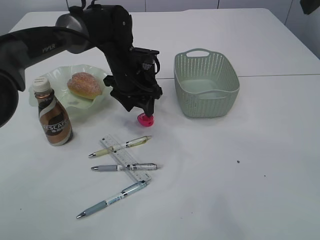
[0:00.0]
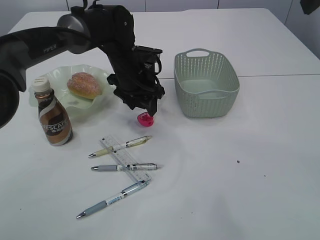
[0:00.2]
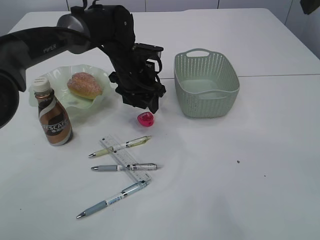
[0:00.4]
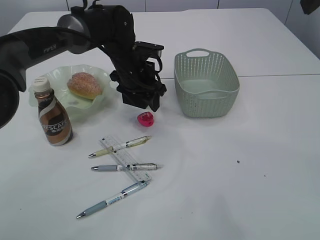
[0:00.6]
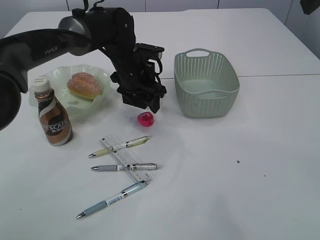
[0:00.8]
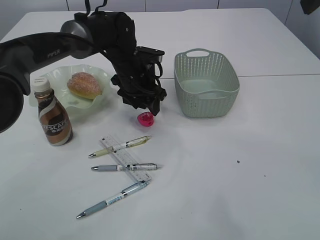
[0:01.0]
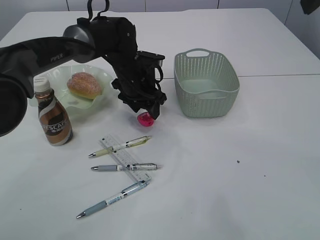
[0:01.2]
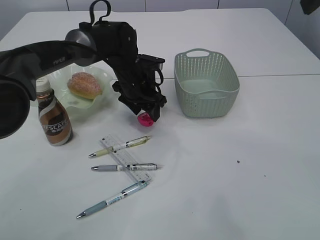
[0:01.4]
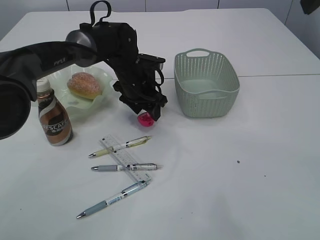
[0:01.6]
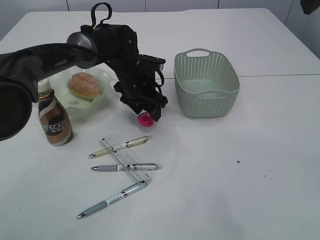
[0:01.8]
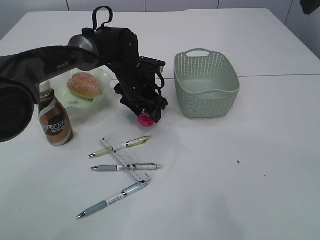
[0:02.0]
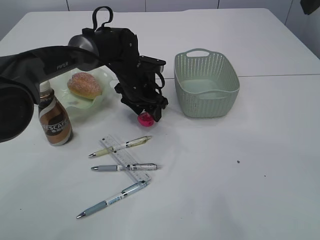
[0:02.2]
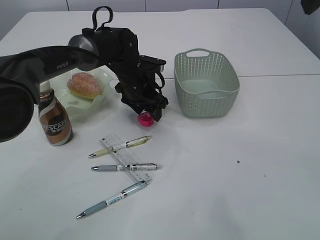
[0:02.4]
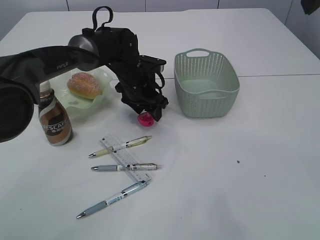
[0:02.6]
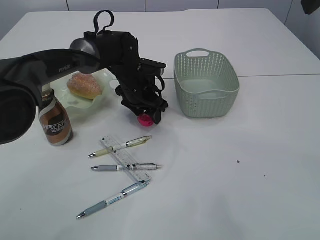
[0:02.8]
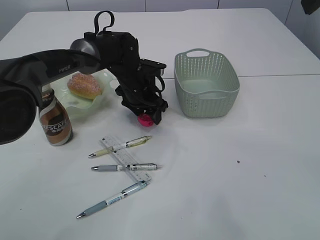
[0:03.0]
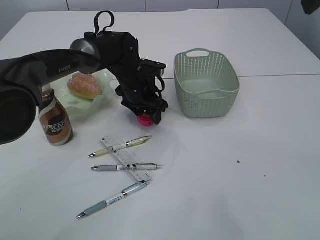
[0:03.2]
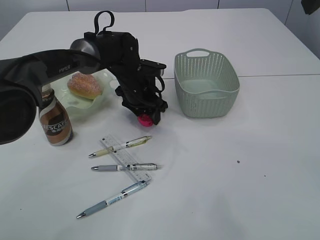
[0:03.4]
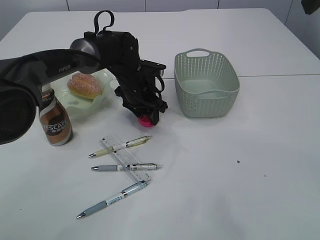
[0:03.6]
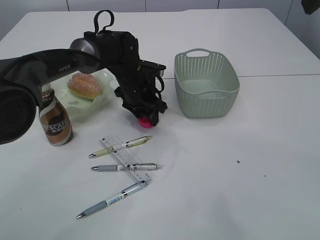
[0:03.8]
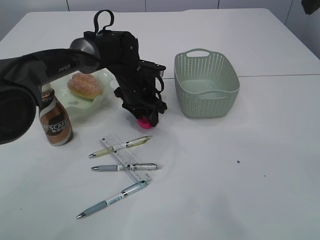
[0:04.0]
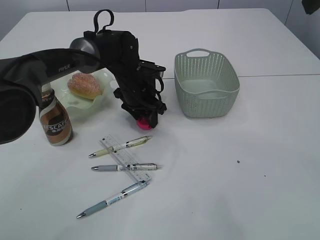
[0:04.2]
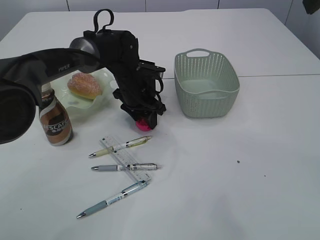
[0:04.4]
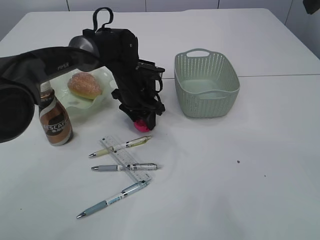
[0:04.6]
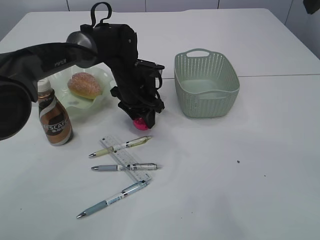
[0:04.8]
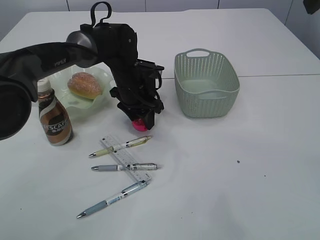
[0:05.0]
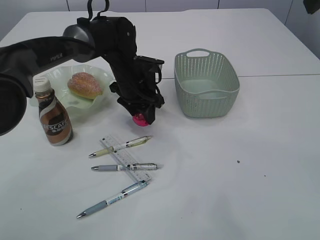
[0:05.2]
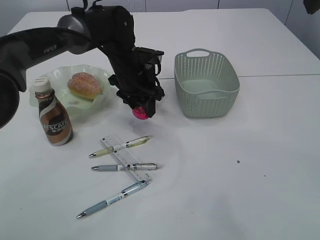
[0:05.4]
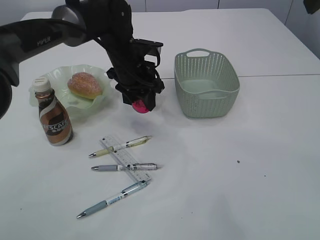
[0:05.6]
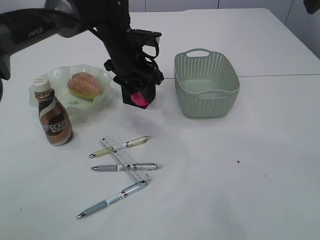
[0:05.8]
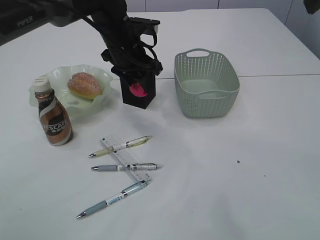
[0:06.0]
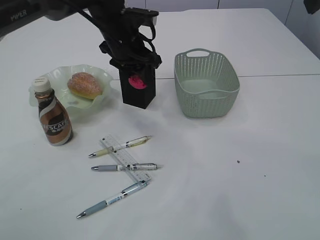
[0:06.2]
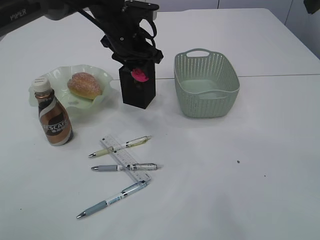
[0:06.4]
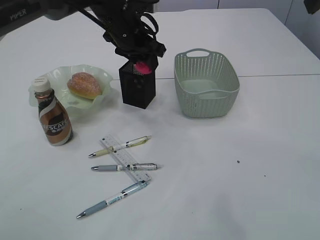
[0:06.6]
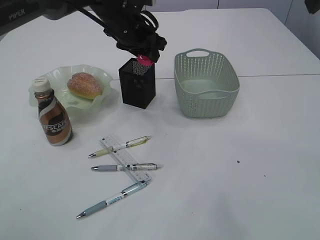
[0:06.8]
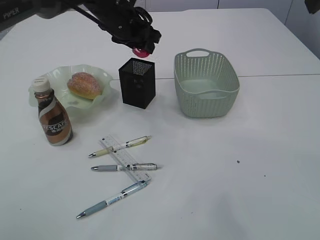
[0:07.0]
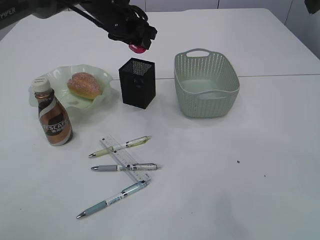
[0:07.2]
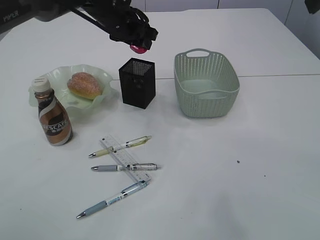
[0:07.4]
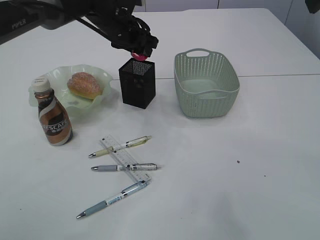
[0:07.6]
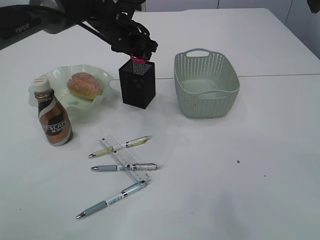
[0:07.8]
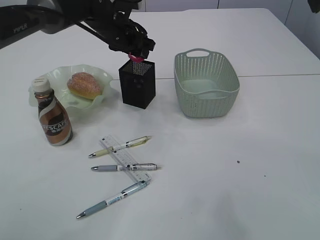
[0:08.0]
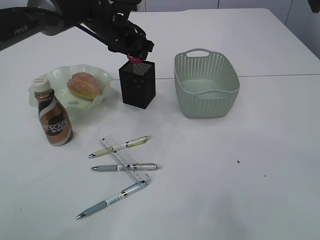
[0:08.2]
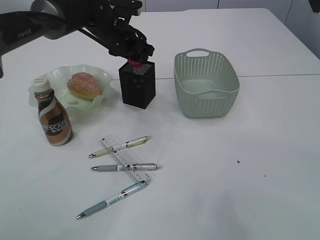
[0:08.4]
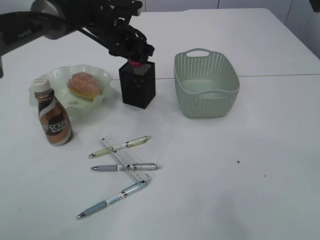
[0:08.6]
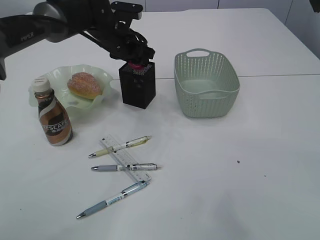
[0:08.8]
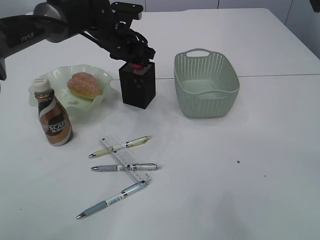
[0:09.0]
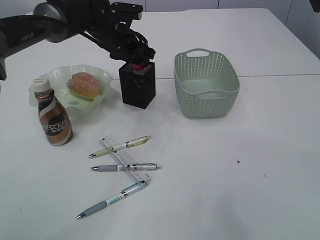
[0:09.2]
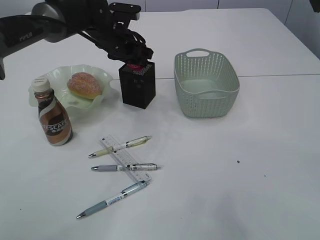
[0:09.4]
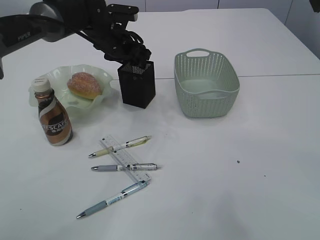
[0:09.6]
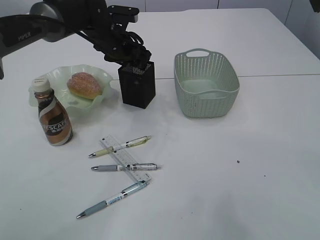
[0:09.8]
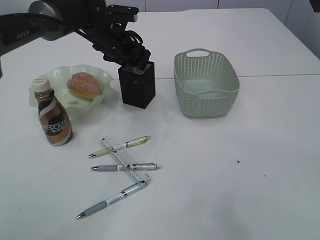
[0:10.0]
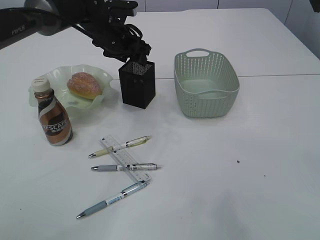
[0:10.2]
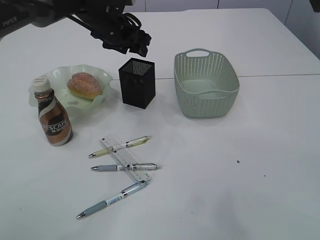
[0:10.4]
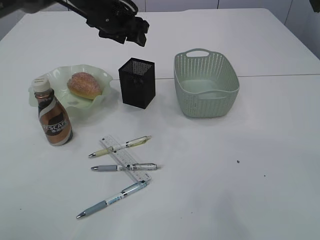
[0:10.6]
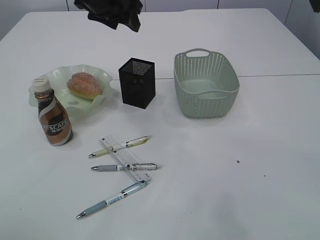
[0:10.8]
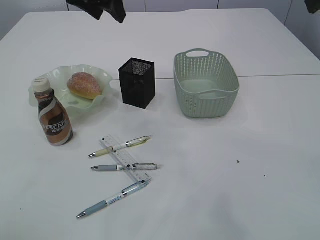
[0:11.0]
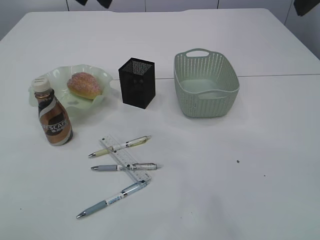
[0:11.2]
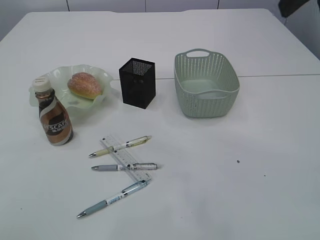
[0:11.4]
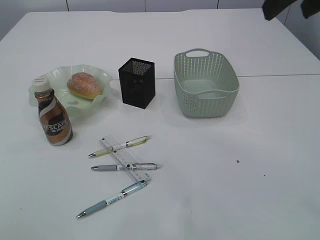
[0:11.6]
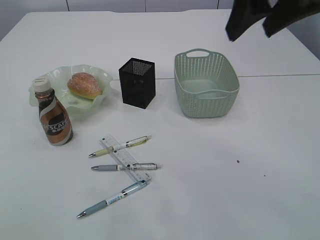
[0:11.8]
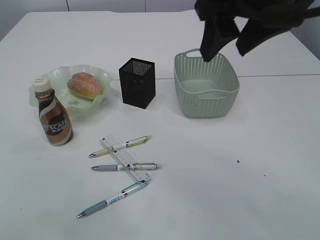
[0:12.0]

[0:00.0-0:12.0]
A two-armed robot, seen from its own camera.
Step, 0:00.0 to 0:05.0: Pick up the red pencil sharpener.
Step, 0:05.2 to 0:10.2: Place the red pencil sharpener into the pen holder.
0:00.0 to 0:04.4: The grippers move only a little.
0:04.4 to 0:06.0: The left gripper heads upward, covering about 10 cm.
0:06.0 to 0:07.6: The left gripper is displaced forward by about 5 cm.
0:07.6 to 0:10.4: The grippers stay close to where they were, moving slightly.
0:10.4 to 0:12.0: The left gripper moves upward, backward and to the left, roughly 35 cm. The right gripper heads to the left, covering approximately 10 cm.

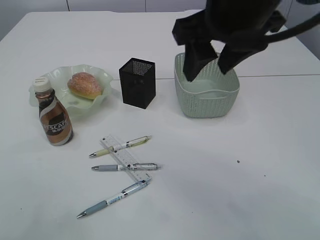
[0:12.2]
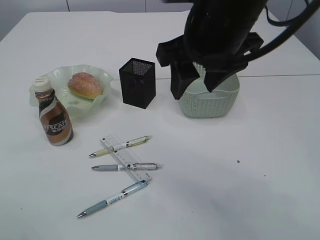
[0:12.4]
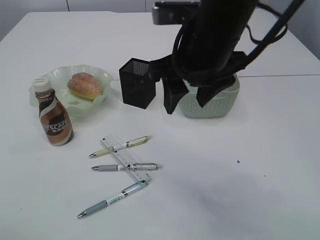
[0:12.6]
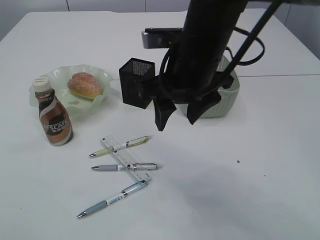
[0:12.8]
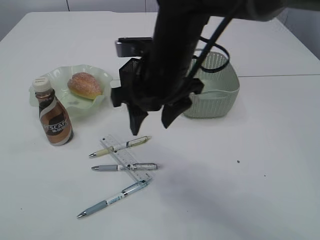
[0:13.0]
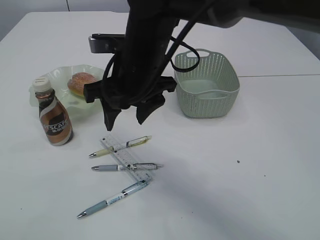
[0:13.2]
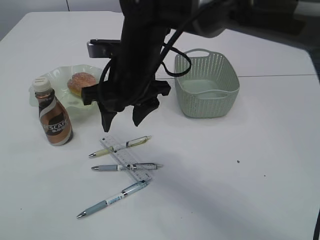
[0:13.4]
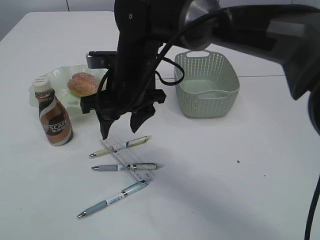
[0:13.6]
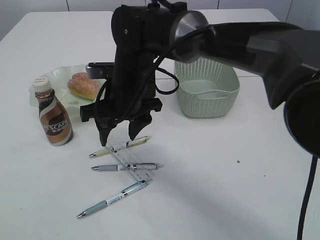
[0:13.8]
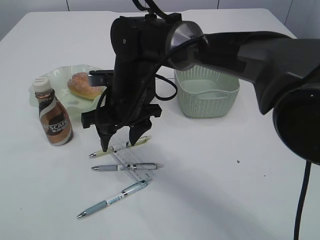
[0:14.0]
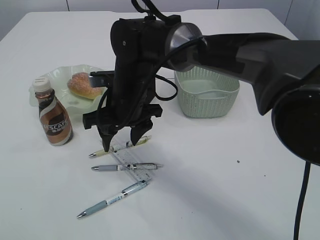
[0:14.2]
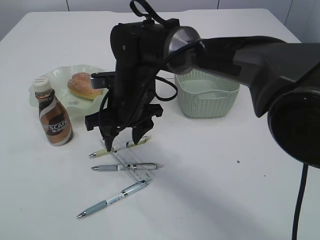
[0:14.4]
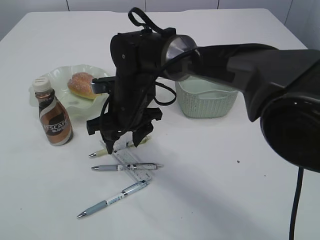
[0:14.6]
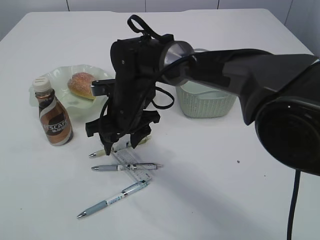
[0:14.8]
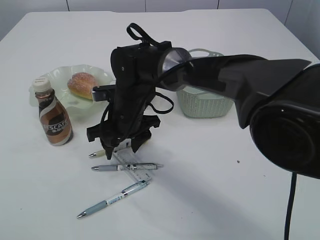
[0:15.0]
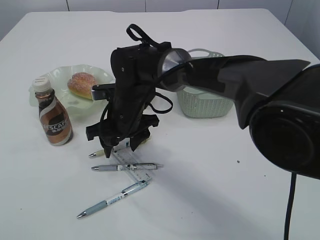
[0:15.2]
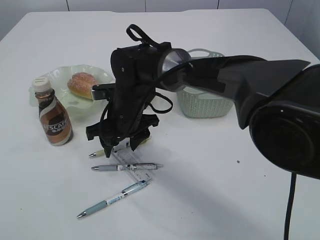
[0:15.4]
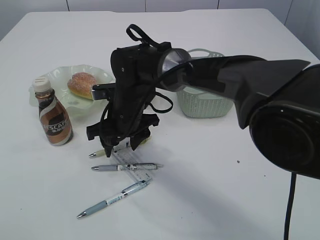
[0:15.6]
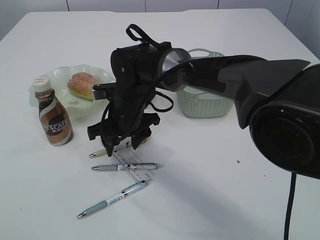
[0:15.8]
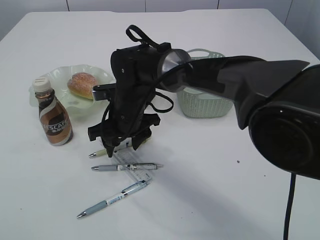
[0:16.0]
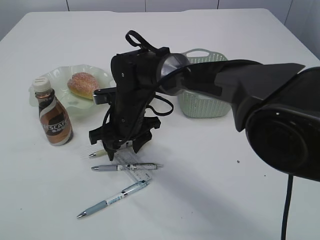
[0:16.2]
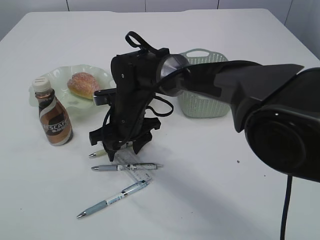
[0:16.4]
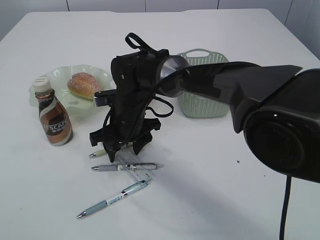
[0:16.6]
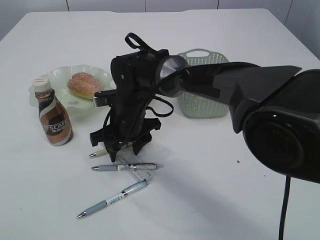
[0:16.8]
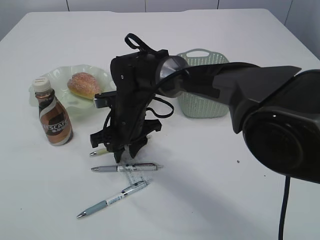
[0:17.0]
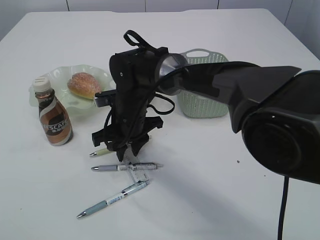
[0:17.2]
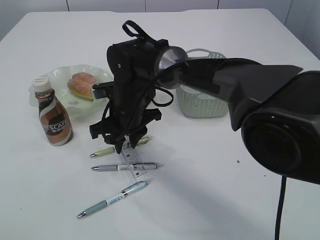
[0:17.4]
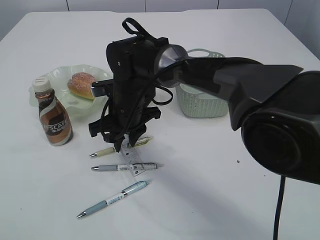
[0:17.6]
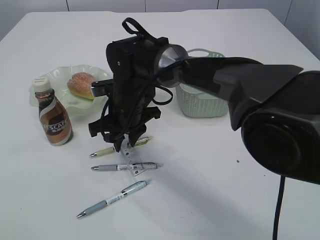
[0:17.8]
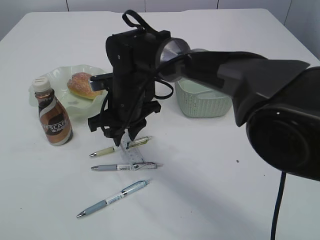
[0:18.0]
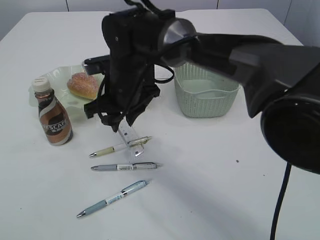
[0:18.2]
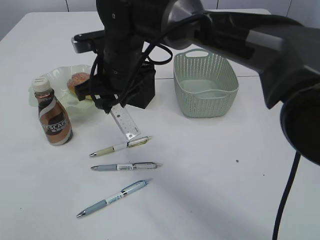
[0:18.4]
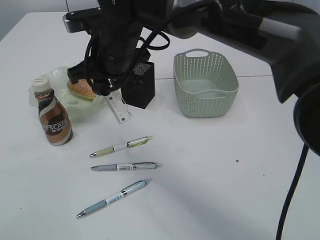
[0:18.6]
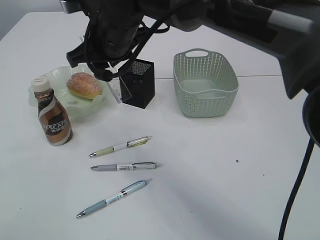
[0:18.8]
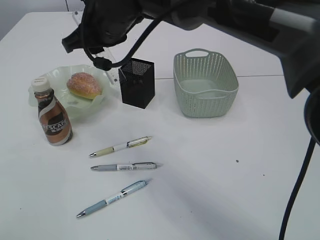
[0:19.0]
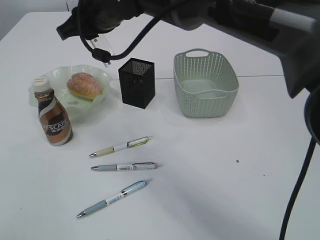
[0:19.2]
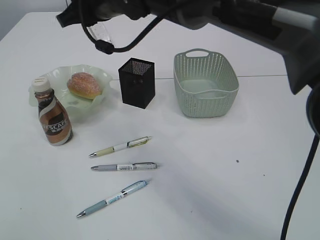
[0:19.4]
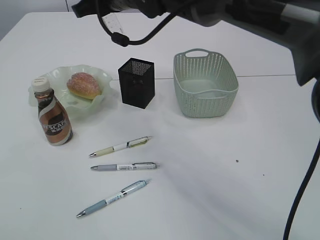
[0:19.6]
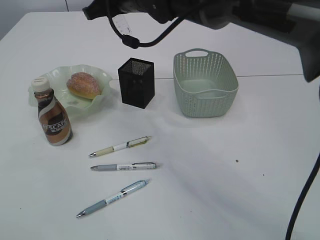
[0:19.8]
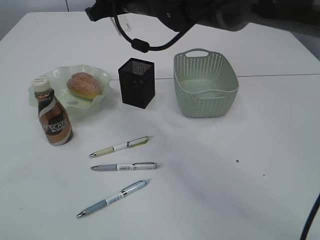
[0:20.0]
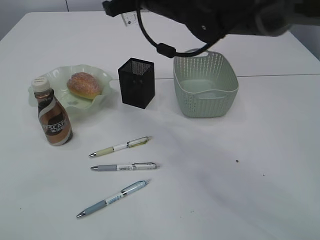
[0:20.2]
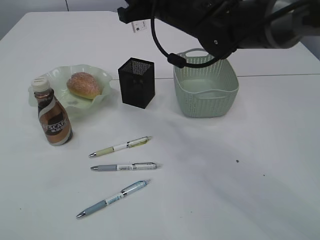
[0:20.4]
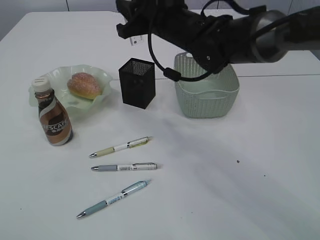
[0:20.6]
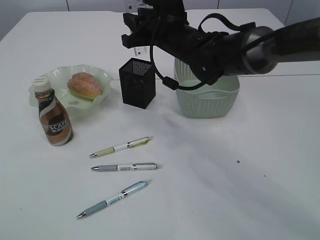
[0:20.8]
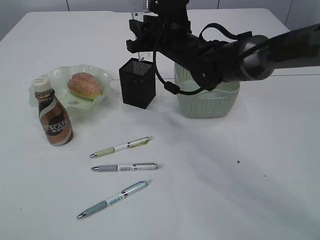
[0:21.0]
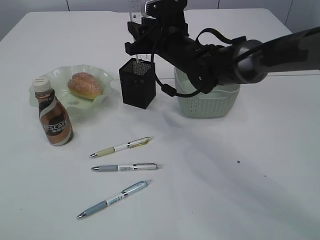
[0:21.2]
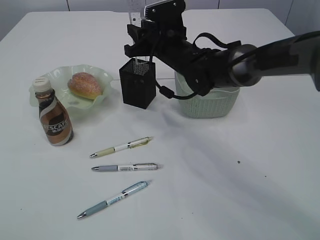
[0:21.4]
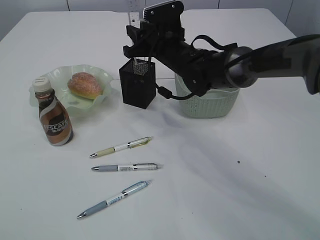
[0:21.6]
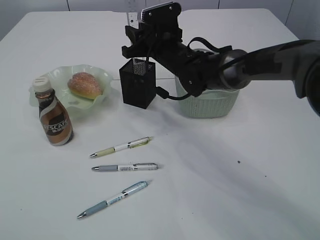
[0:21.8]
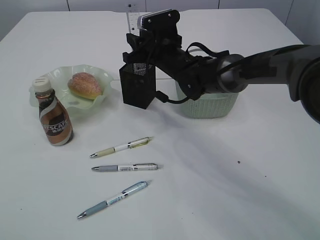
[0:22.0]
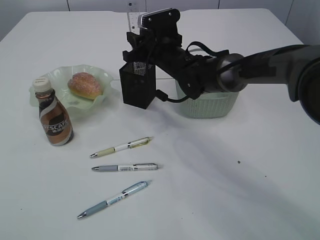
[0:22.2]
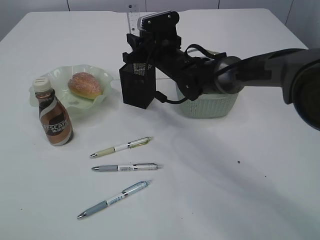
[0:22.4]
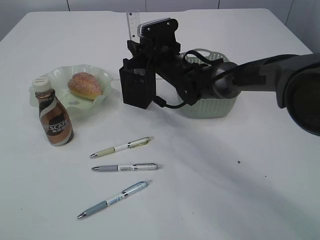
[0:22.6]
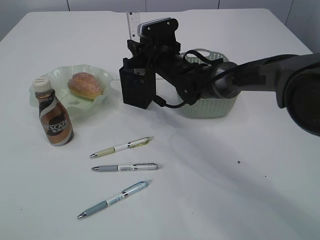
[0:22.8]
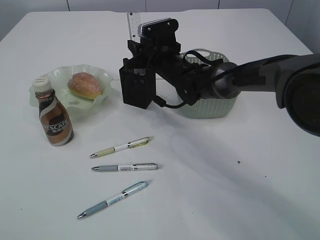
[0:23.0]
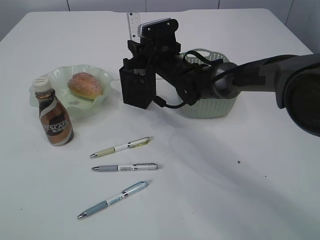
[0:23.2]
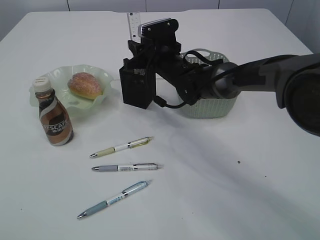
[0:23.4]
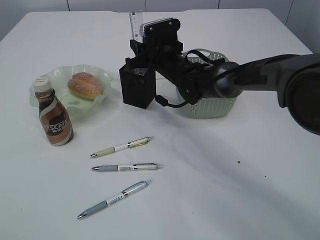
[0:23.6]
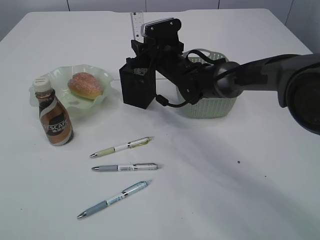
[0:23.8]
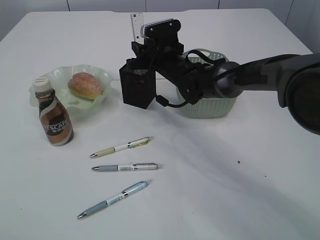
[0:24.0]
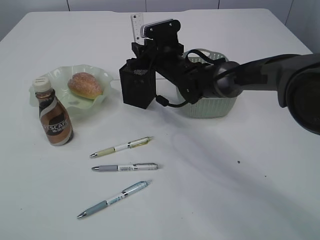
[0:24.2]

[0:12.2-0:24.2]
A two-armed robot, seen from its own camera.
Step, 0:12.2 to 0:18.0: pick up the ruler.
0:12.2 to 0:13.8: The left gripper is displaced backward and downward by about 15 cm; the right gripper moves downward, to the left and forward, roughly 25 cm.
0:13.8 to 0:15.2: The right gripper travels downward by roughly 5 cm.
0:15.2 to 0:16.6: The grippers make only small movements.
0:16.6 to 0:18.2: The right gripper moves upward, roughly 5 cm, and closes up.
0:18.2 to 0:19.8: The right gripper shifts roughly 15 cm upward and forward.
0:19.8 to 0:21.2: The right gripper is displaced downward and to the right by roughly 10 cm.
0:21.2 to 0:22.6: The right gripper travels downward by approximately 5 cm.
0:22.6 to 0:24.2: The two grippers keep their place.
